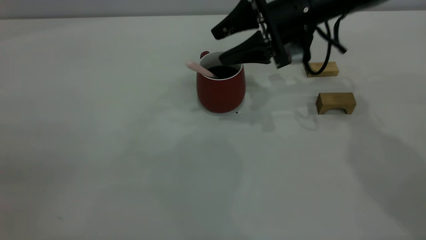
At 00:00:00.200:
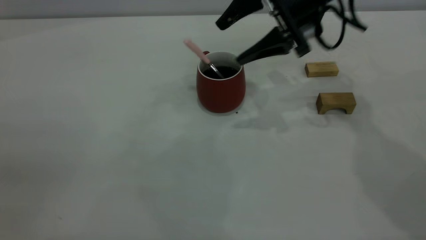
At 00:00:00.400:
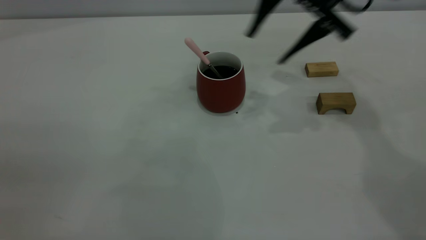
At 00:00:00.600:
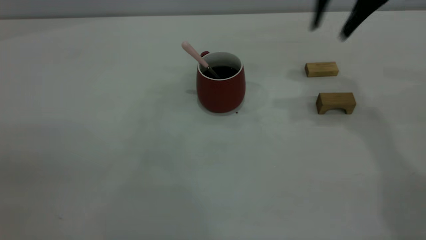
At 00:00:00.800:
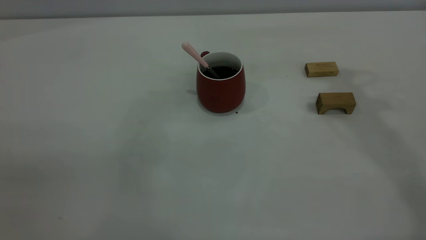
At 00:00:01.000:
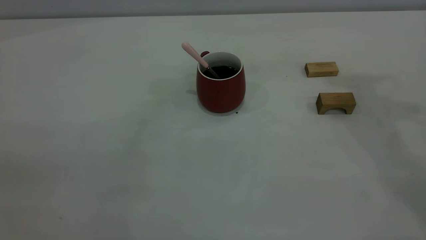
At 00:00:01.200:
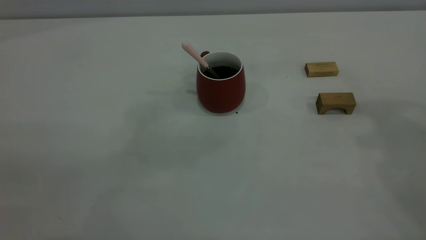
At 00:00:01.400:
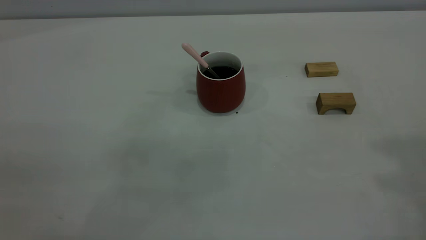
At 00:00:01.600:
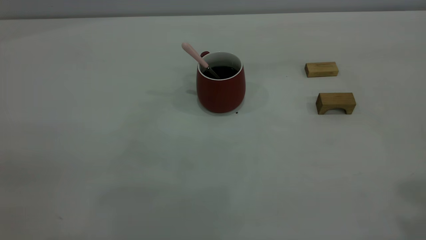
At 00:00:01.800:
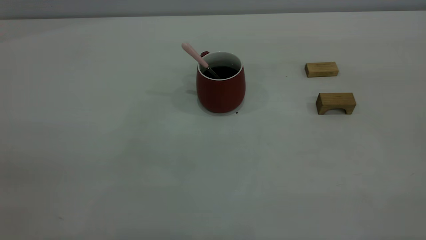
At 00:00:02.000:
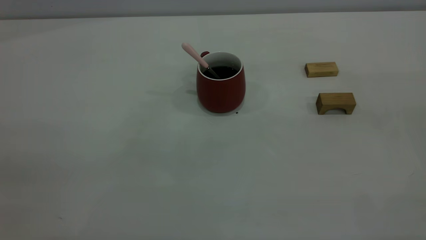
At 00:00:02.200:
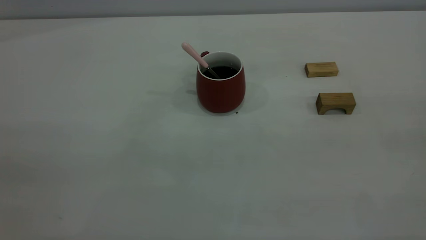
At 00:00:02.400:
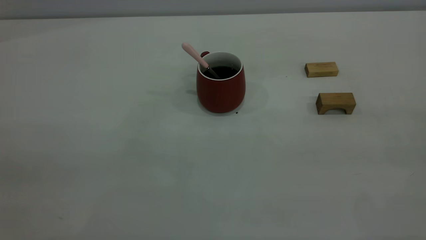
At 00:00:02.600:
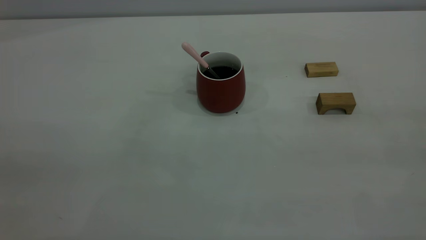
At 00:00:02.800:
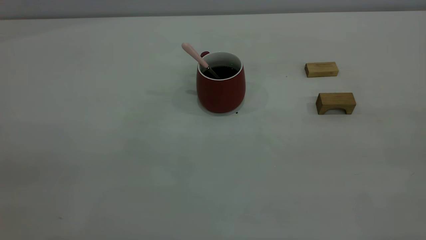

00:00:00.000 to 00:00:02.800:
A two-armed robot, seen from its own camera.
00:00:00.000 to 00:00:01.400: The right gripper shifts approximately 40 cm upward, backward and to the right, and closes up.
